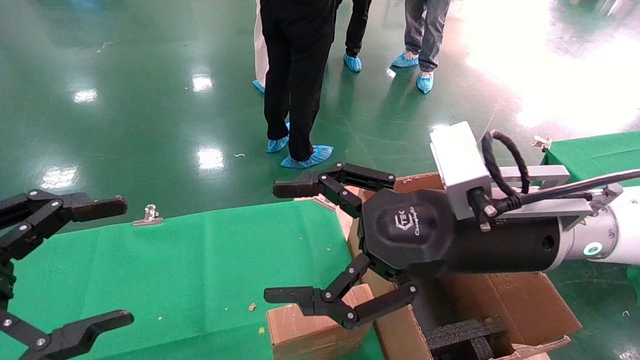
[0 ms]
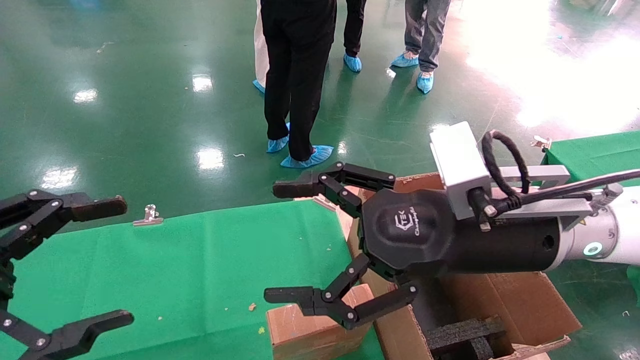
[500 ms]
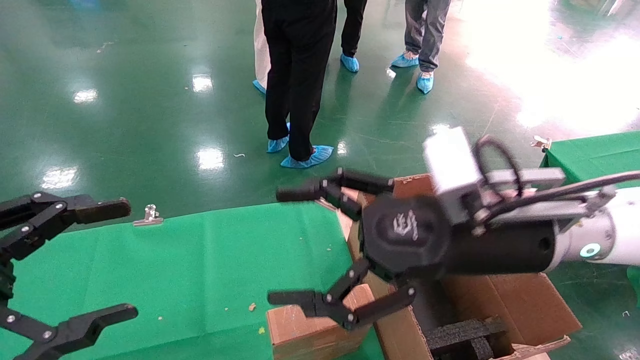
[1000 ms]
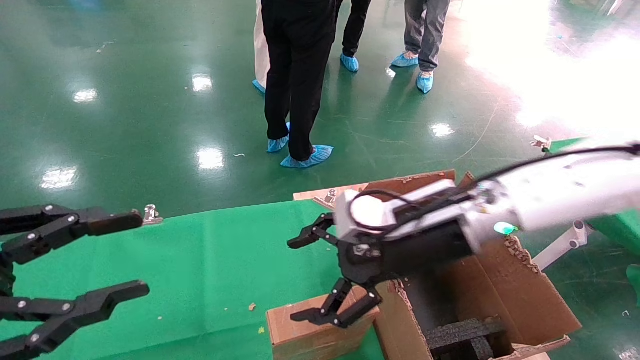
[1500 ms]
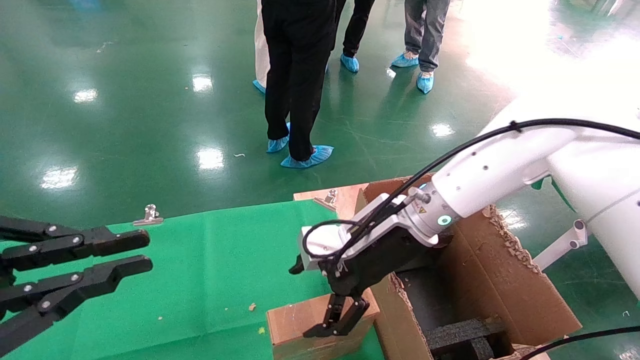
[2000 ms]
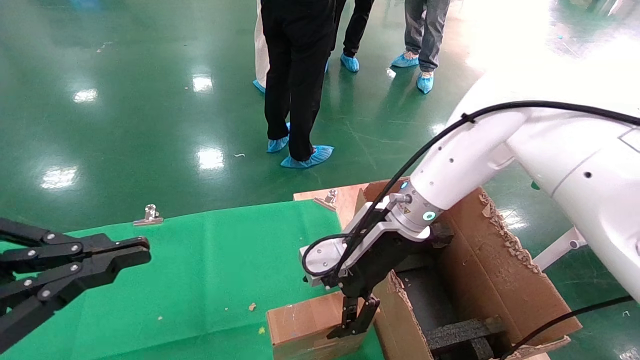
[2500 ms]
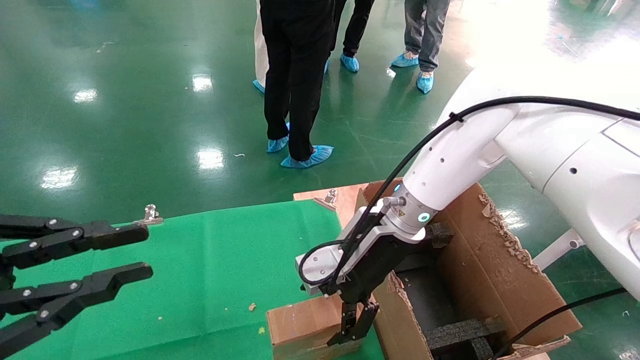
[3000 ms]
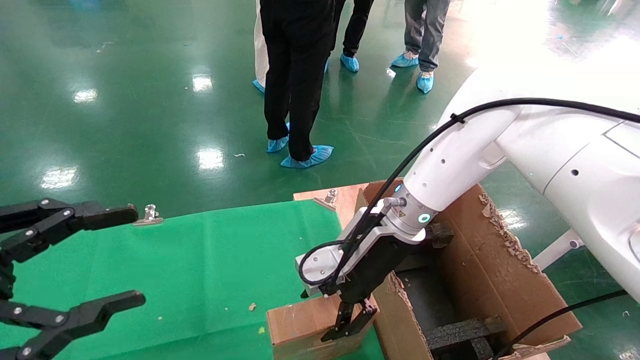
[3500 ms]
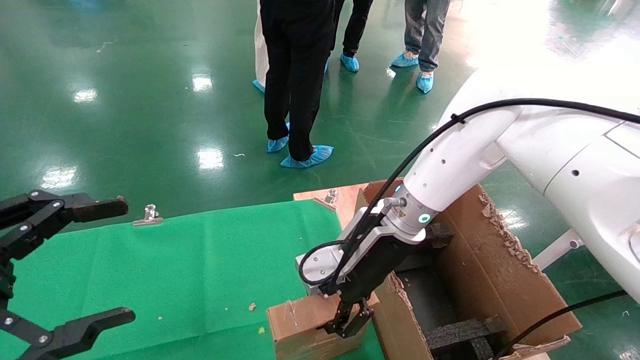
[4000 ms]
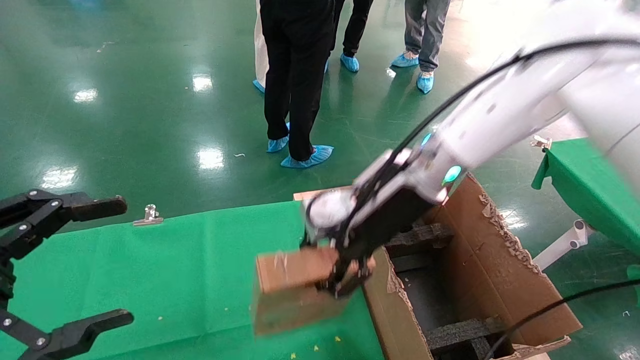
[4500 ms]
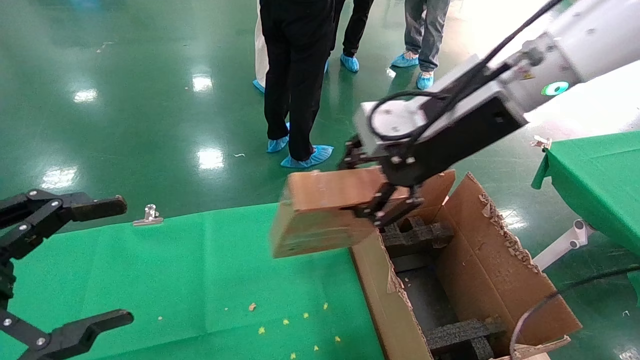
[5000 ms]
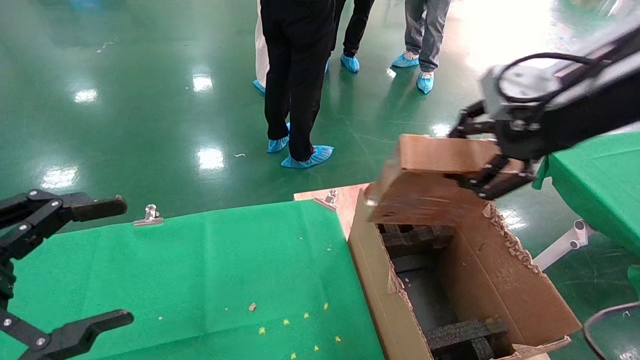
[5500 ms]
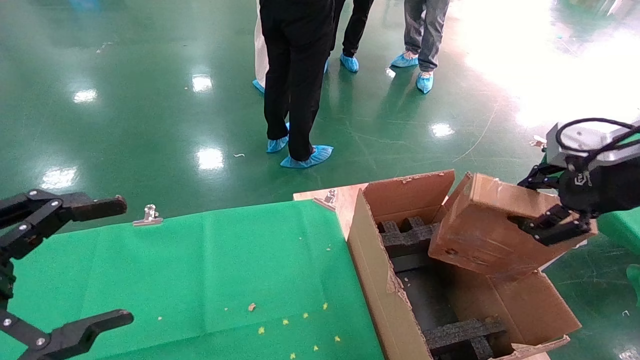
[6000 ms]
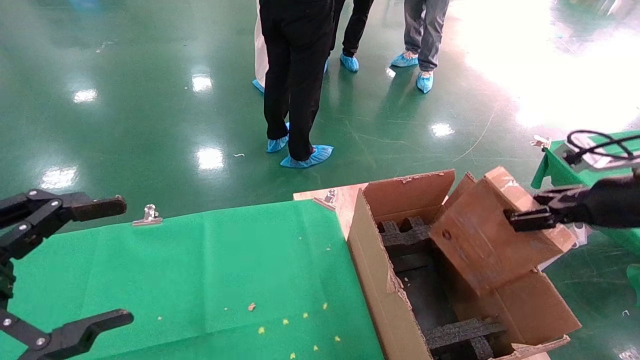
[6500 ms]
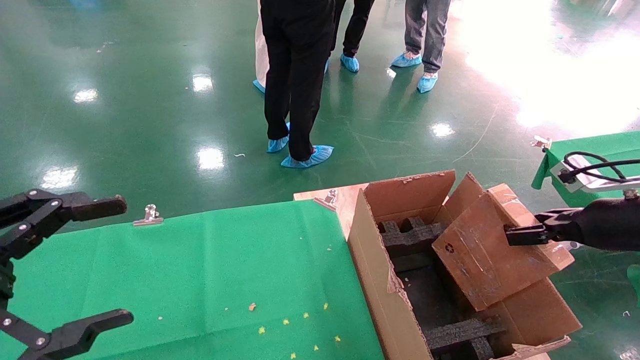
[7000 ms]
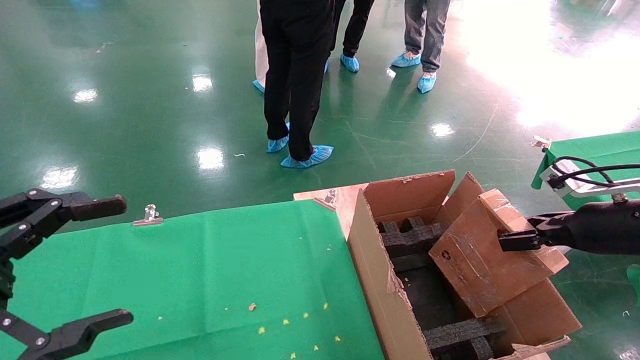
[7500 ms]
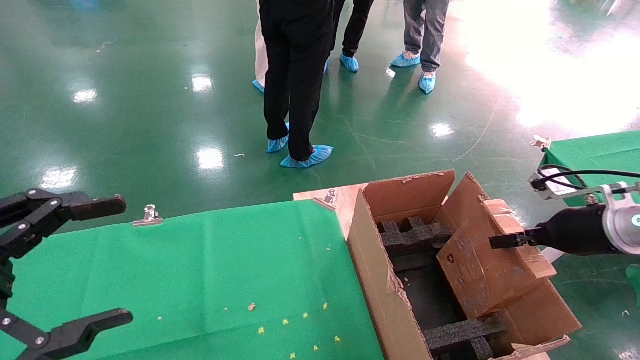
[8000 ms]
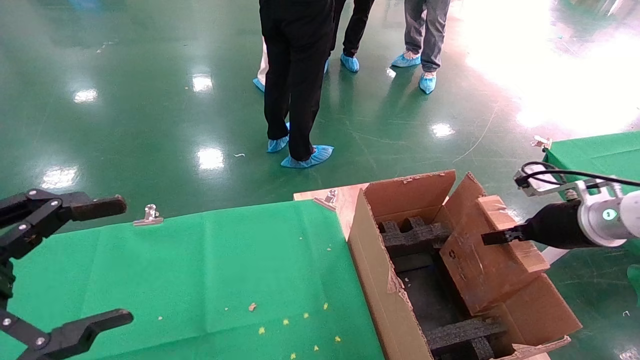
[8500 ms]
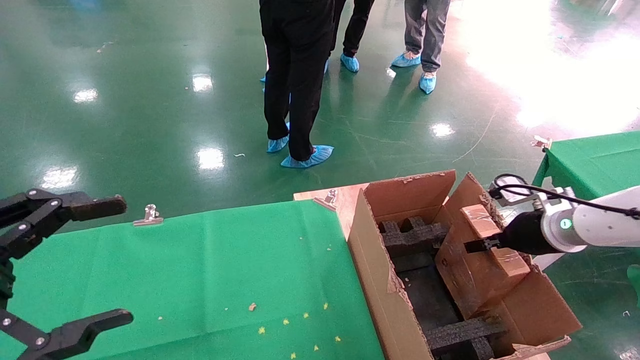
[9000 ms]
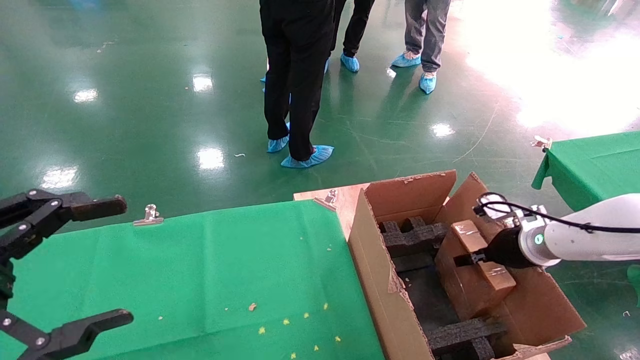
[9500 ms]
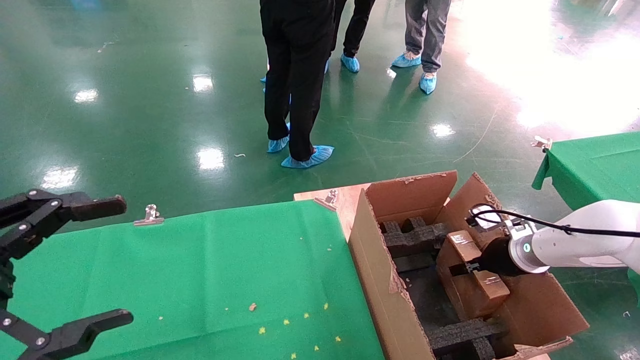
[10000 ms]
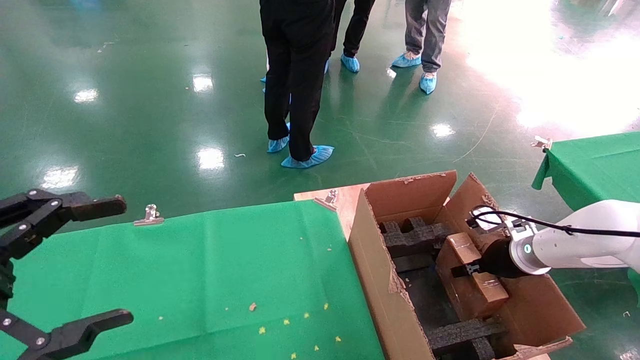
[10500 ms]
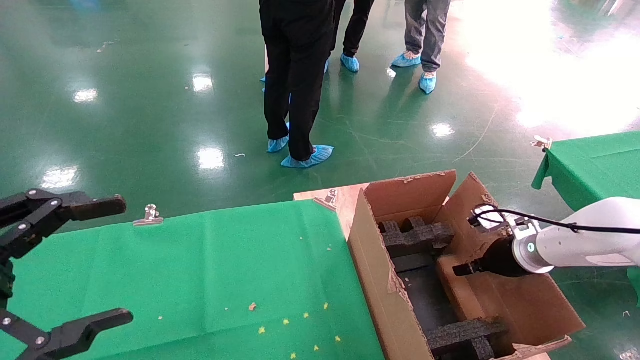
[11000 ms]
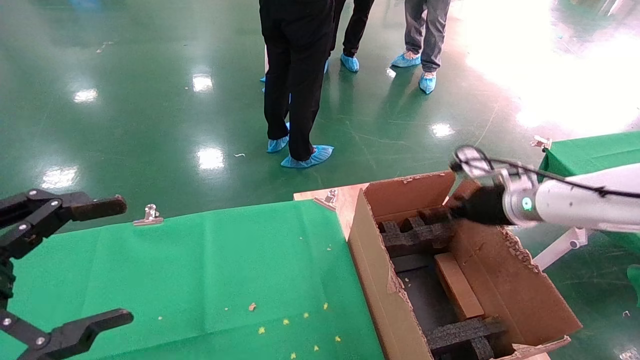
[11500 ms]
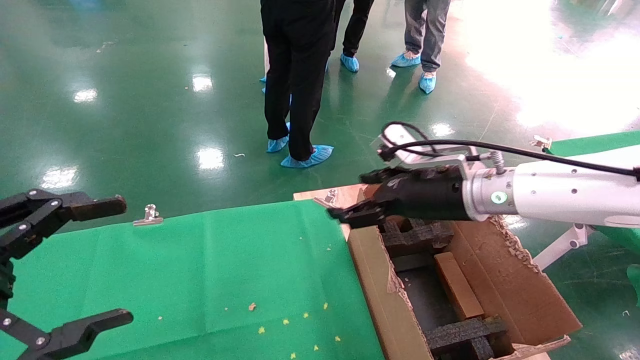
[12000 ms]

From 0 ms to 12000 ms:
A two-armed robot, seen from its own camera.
Task of the whole recording: using a robotic arm to pick up a cardboard box and palace it the carton.
Step, from 1500 ms to 3500 ms: Pick up the mouse and the power cord paper box.
Step, from 4000 ms to 11500 ms: Place the mouse and the power cord paper box into the container.
From 0 ms to 2000 ms: The right gripper heads forward and downward, covering some 15 cm. Meanwhile the left gripper closes up.
From 2000 ms to 4000 ms: The right gripper closes up, while the left gripper opens up.
From 4000 ms to 6000 ms: The right gripper travels to the right, upward and backward by about 35 cm.
From 6000 ms to 8000 ms: The right gripper travels downward by approximately 15 cm.
From 8000 ms to 10000 ms: The right gripper moves downward and forward, about 15 cm.
From 10000 ms to 12000 ms: The right gripper travels to the left and upward by some 25 cm, and opens its fingers.

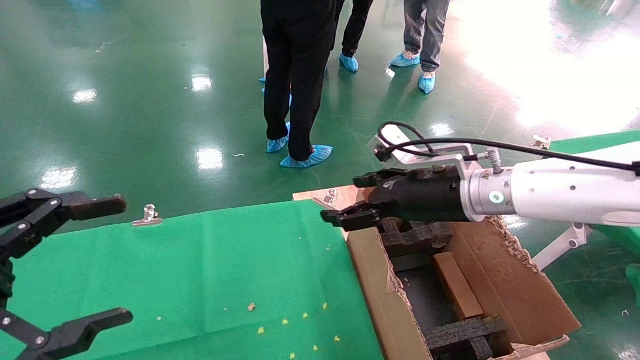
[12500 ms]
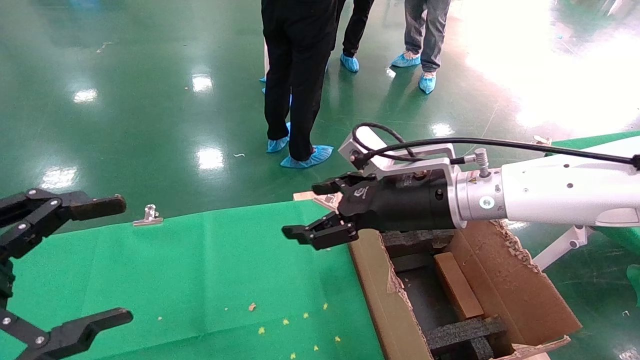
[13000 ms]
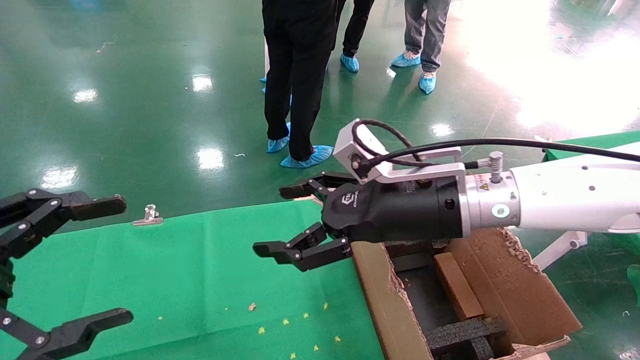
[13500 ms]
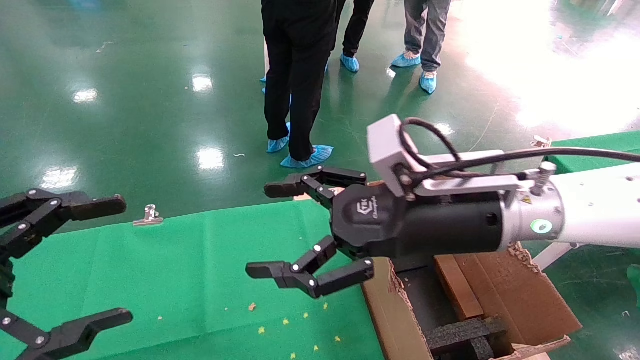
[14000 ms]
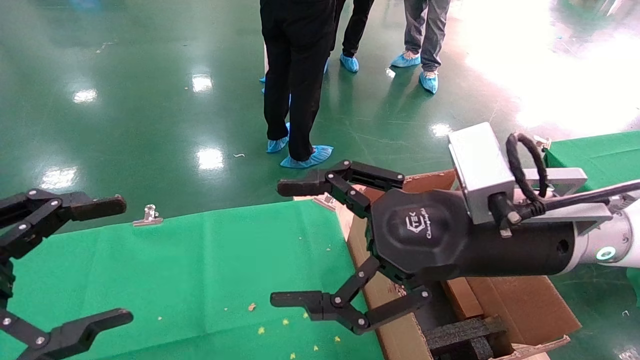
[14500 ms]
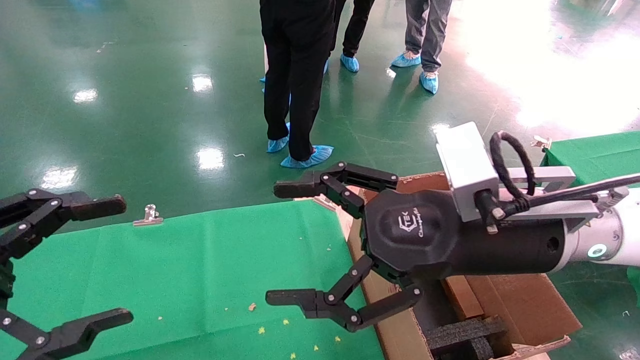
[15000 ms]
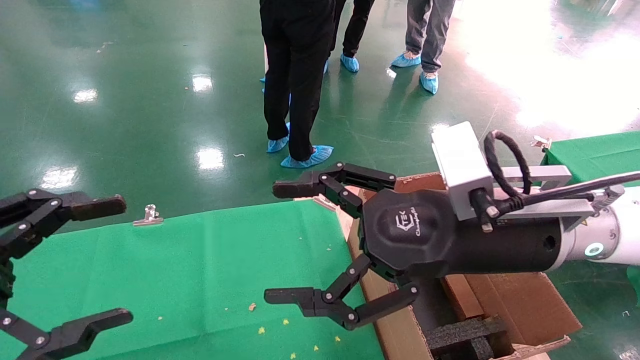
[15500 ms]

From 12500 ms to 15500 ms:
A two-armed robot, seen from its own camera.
Task of the whole recording: using a robotic arm to pick up a cardboard box and palace it the carton.
From 12500 ms to 14000 ms: The right gripper travels backward by about 10 cm.
From 14000 ms to 15500 ms: The grippers move only a little.
